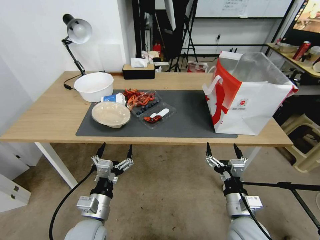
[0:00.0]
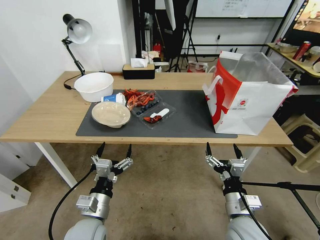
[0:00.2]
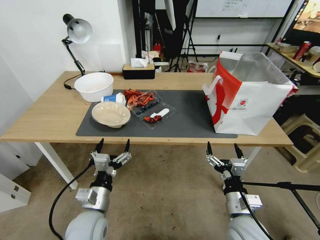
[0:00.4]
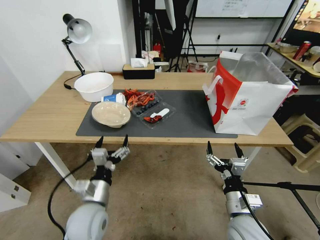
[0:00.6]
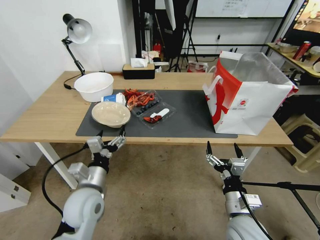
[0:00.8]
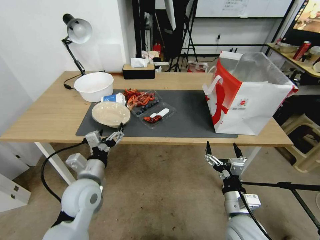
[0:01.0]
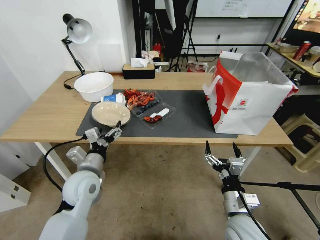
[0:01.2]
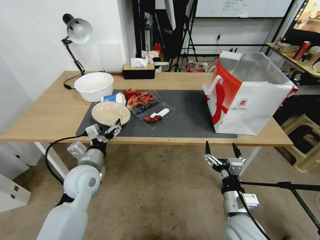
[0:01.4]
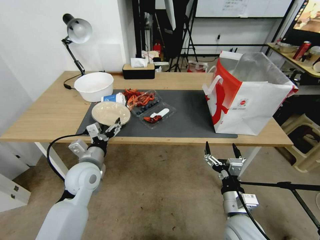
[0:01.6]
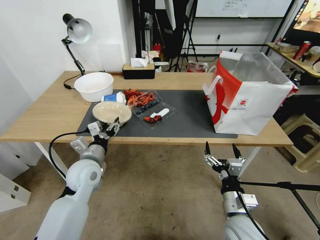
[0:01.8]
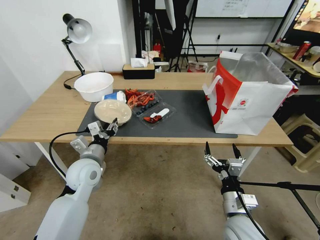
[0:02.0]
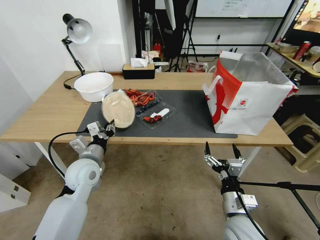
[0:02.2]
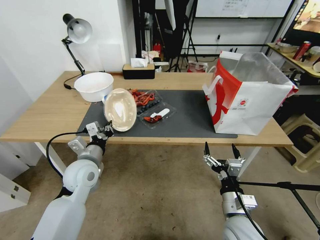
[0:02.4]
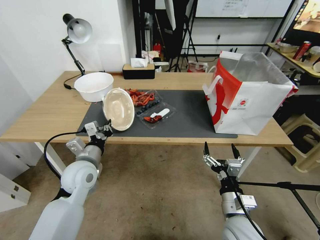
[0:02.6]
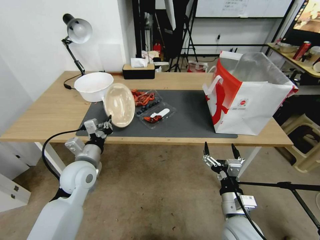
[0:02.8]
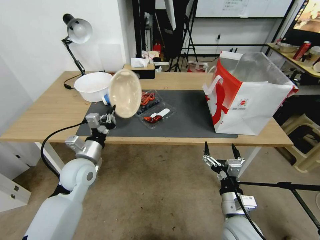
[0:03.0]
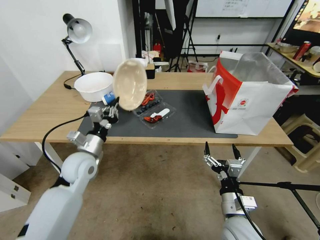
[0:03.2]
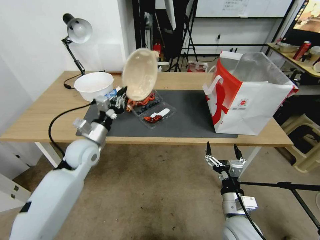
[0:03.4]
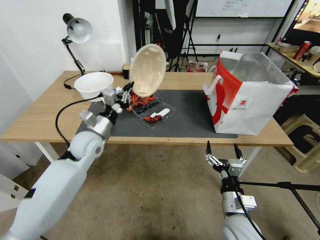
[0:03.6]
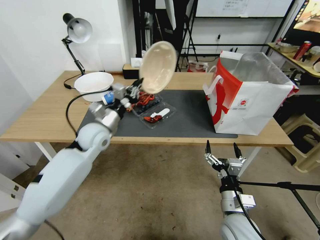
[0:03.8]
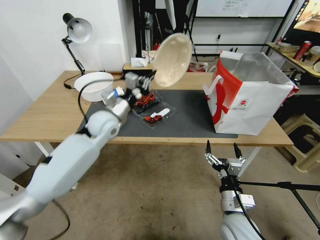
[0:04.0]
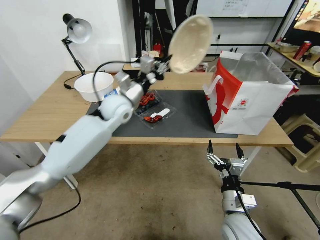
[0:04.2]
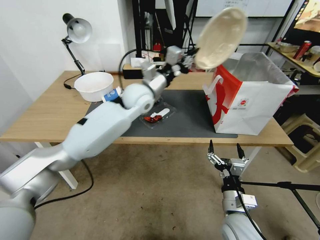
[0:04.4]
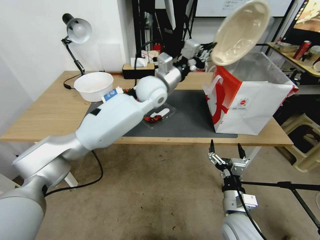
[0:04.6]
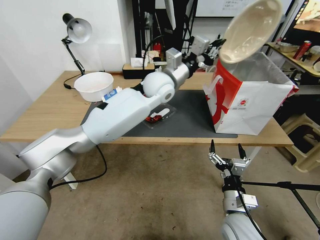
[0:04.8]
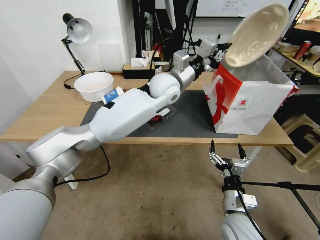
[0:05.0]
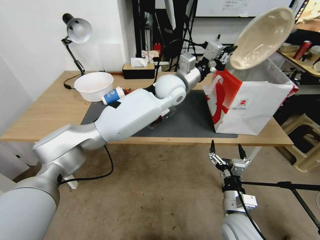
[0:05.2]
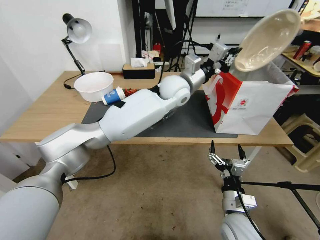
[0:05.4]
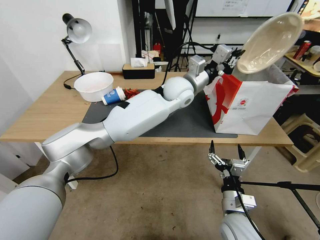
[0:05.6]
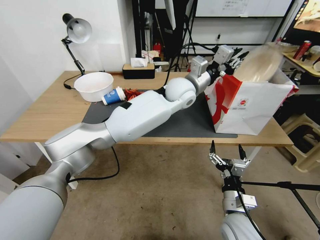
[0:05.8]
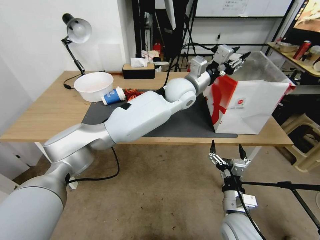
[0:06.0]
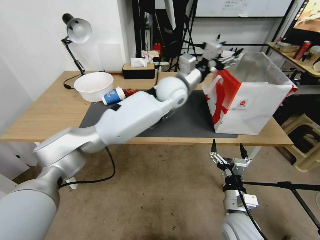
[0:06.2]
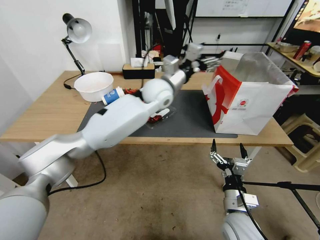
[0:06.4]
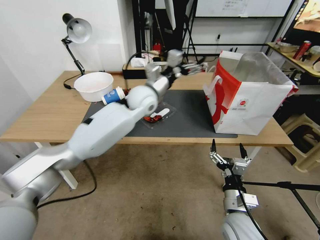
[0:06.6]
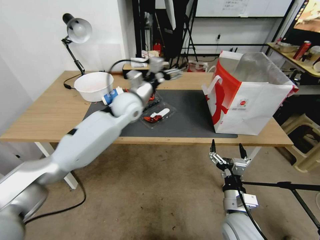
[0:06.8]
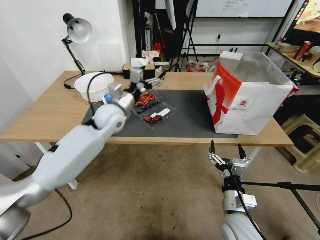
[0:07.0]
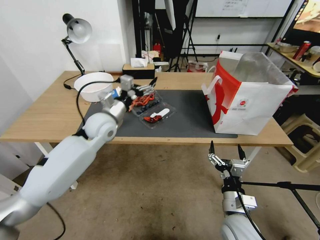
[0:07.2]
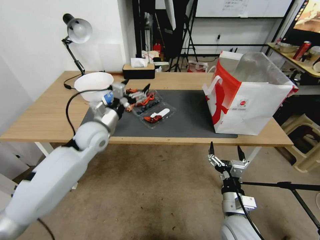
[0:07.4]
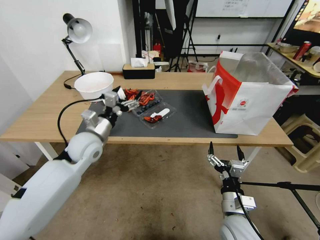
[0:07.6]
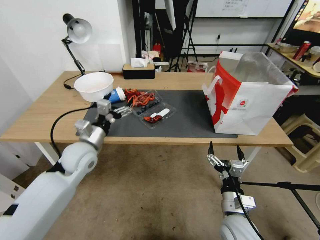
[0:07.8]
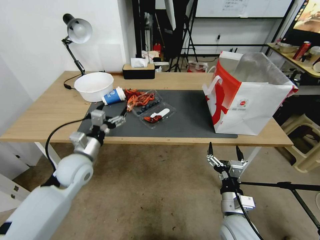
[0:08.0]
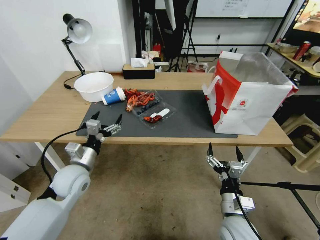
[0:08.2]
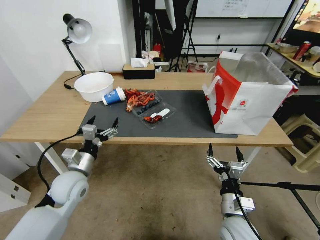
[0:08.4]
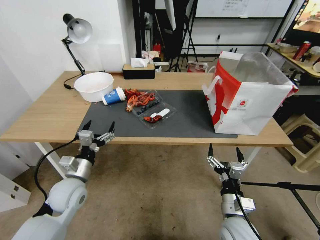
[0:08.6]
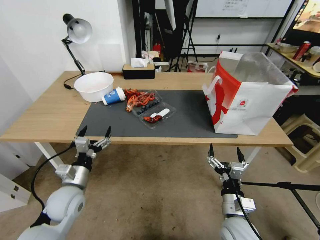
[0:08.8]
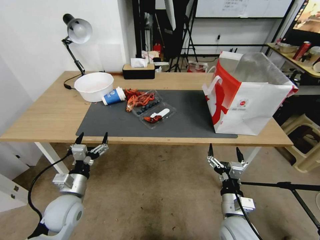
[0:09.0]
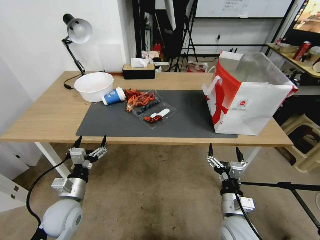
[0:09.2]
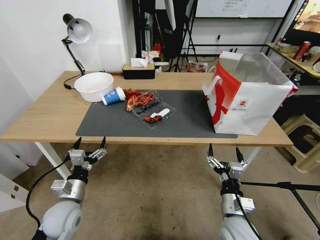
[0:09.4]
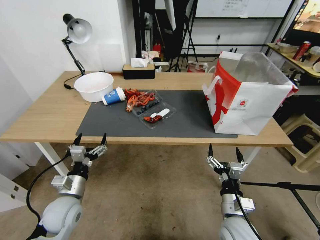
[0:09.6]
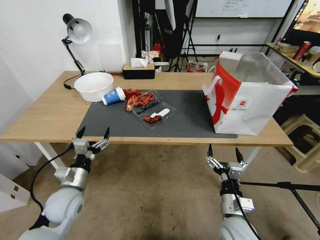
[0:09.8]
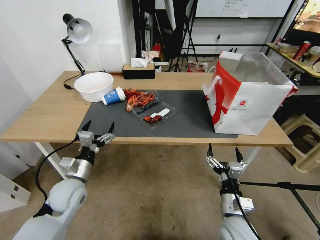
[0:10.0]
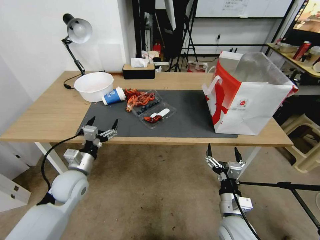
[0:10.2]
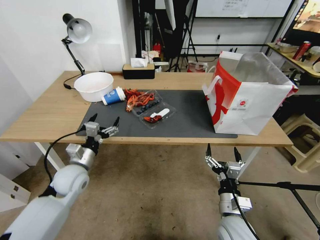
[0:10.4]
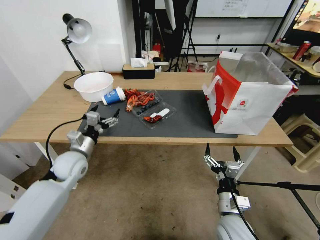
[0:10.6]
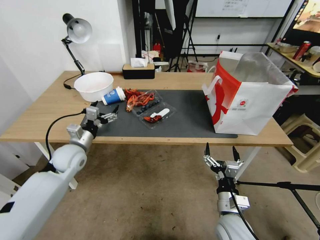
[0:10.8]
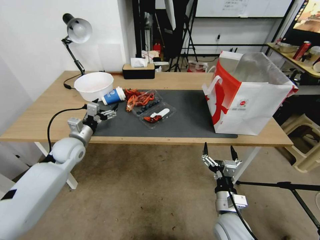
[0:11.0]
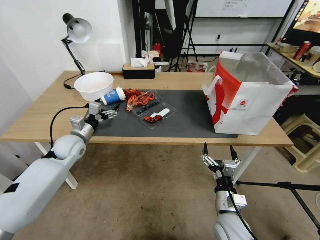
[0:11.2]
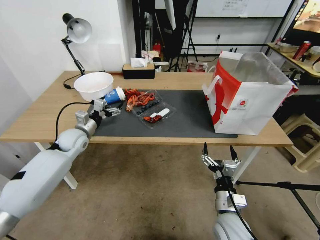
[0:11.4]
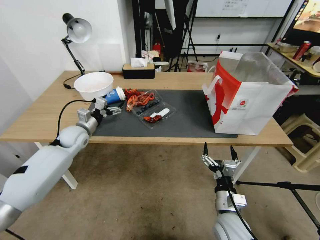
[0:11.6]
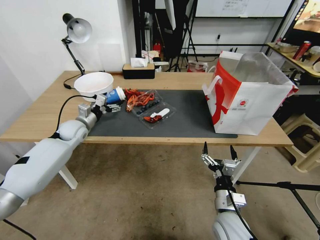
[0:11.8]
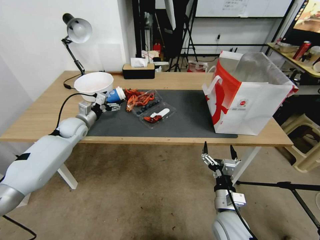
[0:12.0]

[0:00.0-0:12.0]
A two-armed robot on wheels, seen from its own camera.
0:00.0 to 0:01.6: The left gripper moves forward, roughly 15 cm.
0:01.6 to 0:03.0: The left gripper closes its fingers.
0:03.0 to 0:04.4: The left gripper shifts some 30 cm forward, to the right and upward.
0:04.4 to 0:06.0: The left gripper is displaced to the right by roughly 15 cm, and opens up.
0:06.0 to 0:07.6: The left gripper heads to the left, backward and downward, covering about 35 cm, and opens its fingers.
0:07.6 to 0:09.0: The left gripper travels backward and downward by approximately 20 cm.
0:09.0 to 0:10.4: The left gripper goes about 5 cm forward.
0:10.4 to 0:12.0: The left gripper goes roughly 20 cm forward.

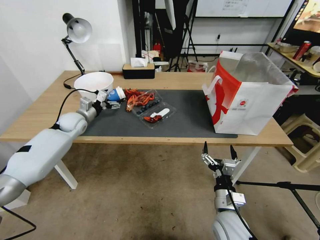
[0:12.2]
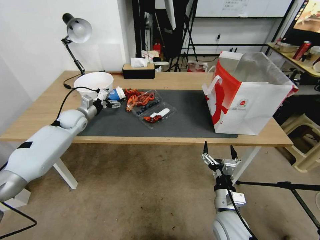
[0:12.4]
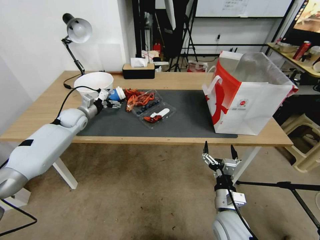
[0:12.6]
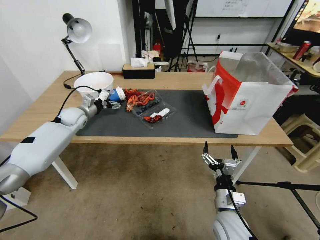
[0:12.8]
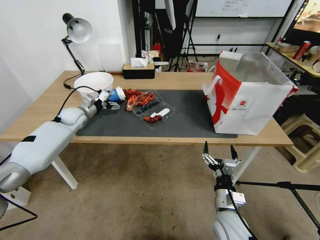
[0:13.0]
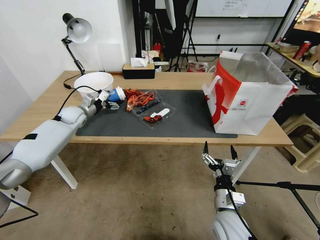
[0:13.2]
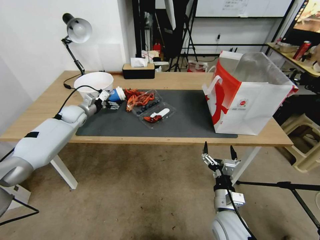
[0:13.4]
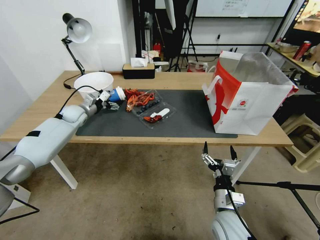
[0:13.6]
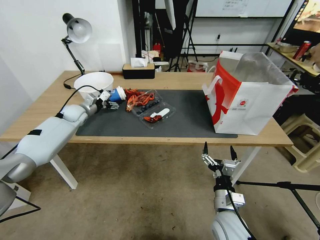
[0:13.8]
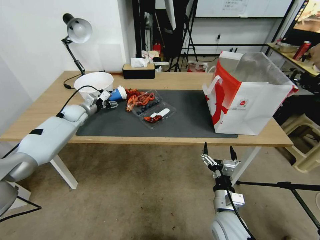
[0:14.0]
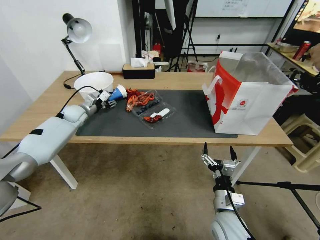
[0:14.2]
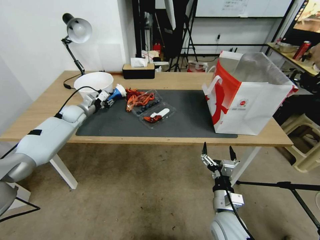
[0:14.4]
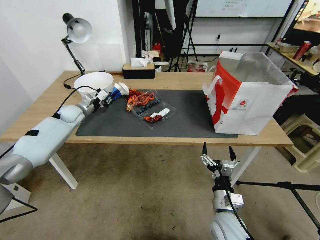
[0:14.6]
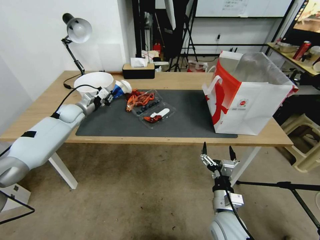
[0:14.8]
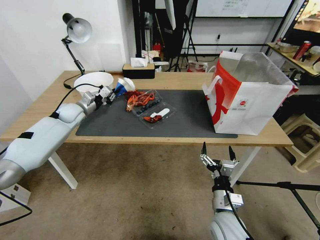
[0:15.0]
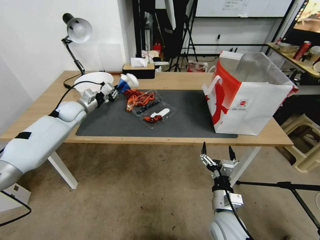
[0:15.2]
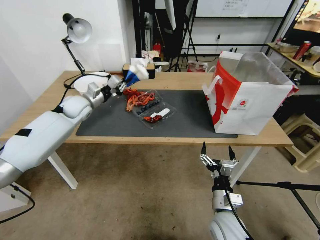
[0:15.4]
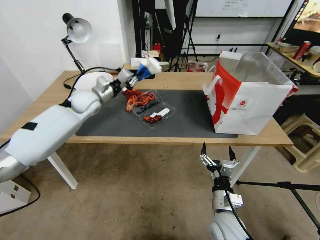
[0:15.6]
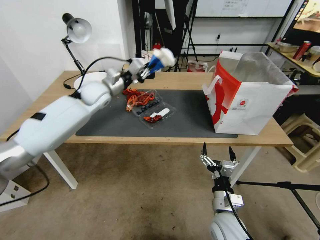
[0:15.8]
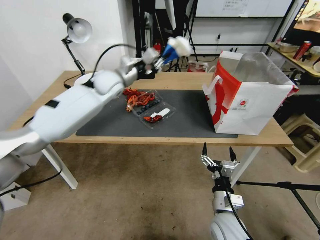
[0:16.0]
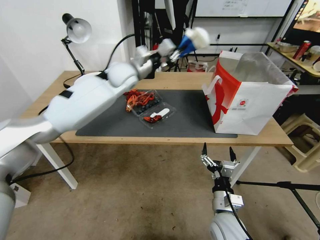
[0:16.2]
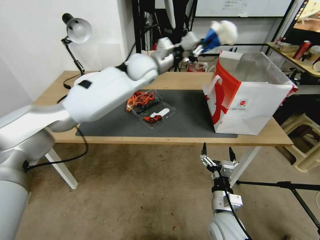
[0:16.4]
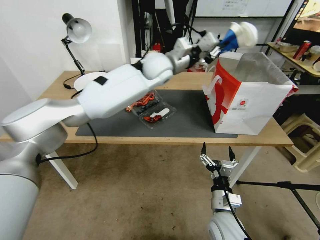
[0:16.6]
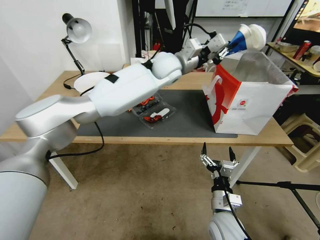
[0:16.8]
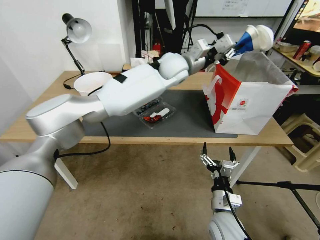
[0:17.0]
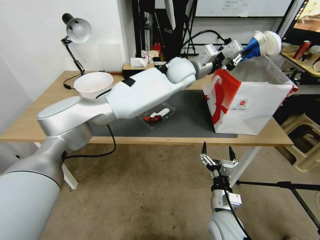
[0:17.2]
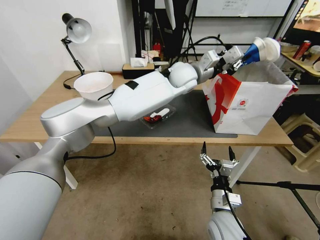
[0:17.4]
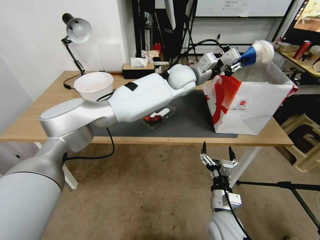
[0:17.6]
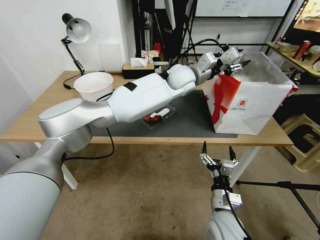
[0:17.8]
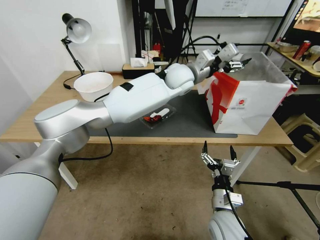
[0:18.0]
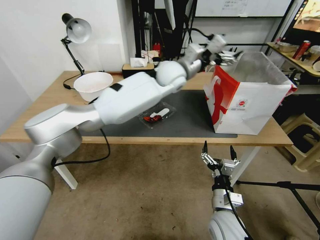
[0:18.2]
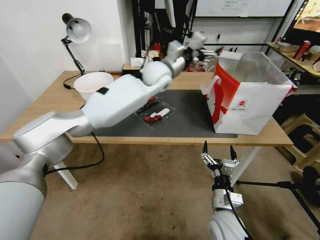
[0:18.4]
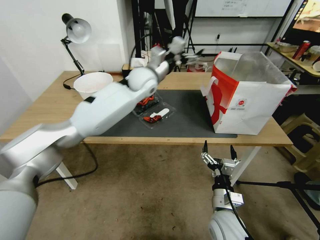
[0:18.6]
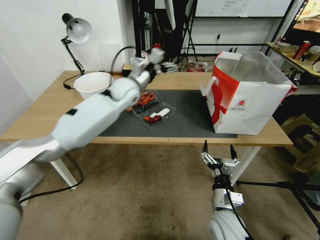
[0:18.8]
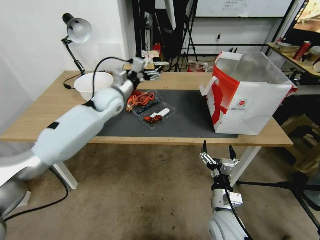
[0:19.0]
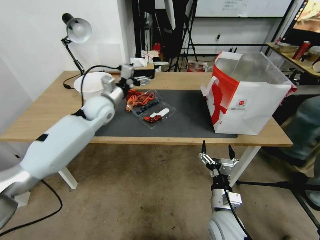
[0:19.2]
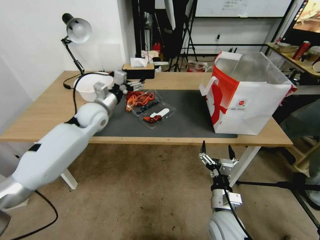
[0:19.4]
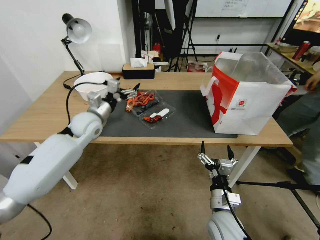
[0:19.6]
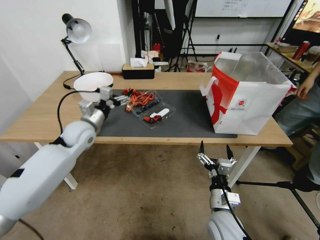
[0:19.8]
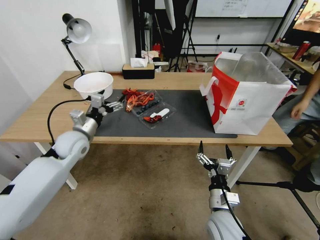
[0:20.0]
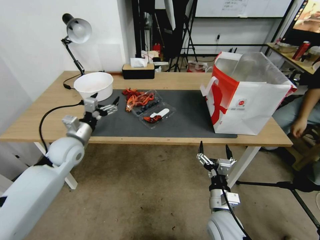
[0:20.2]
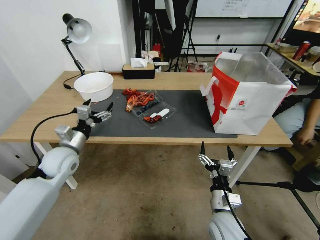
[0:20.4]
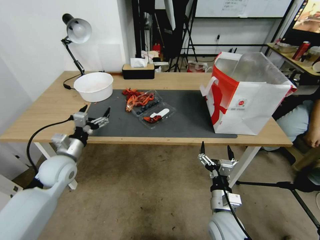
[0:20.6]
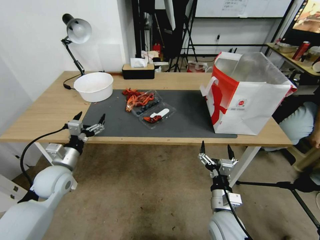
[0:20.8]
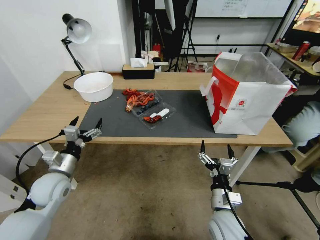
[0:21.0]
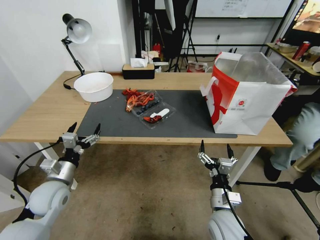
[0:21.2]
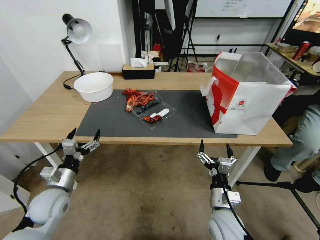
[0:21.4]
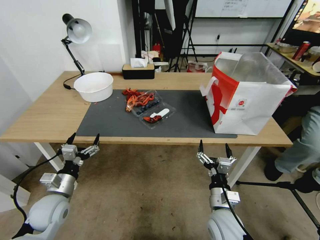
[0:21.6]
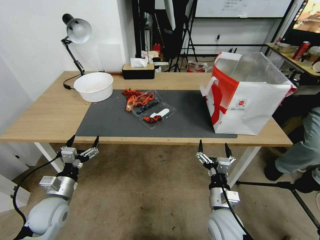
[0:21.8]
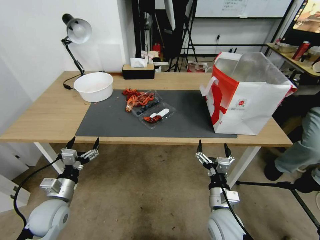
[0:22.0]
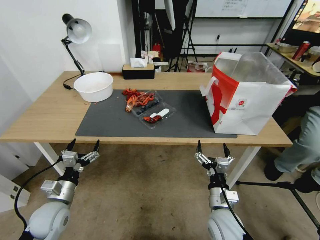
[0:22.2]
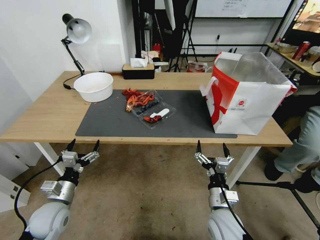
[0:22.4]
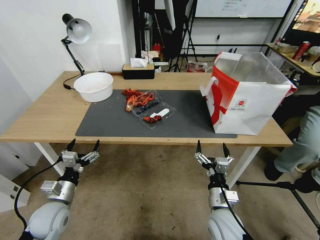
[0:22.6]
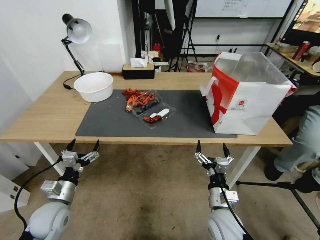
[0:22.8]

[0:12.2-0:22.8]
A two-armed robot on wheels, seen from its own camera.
0:12.2 to 0:13.8: The left gripper travels forward by roughly 5 cm.
0:13.8 to 0:15.2: The left gripper changes place by roughly 5 cm, and closes up.
0:15.2 to 0:16.8: The left gripper is displaced to the right and upward by some 40 cm.
0:16.8 to 0:18.2: The left gripper opens its fingers.
0:18.2 to 0:19.8: The left gripper travels to the left and downward by roughly 35 cm.
0:19.8 to 0:21.2: The left gripper heads backward and downward, covering about 20 cm.
0:21.2 to 0:22.8: The left gripper shifts by about 5 cm.
